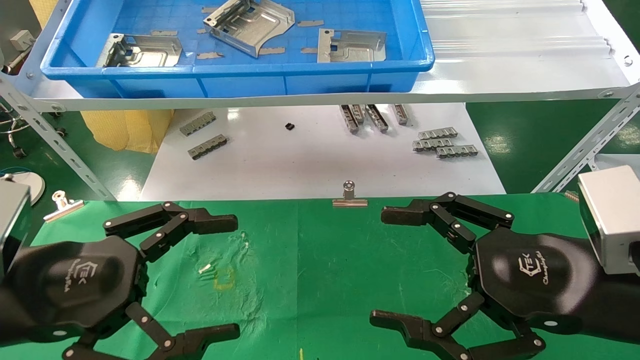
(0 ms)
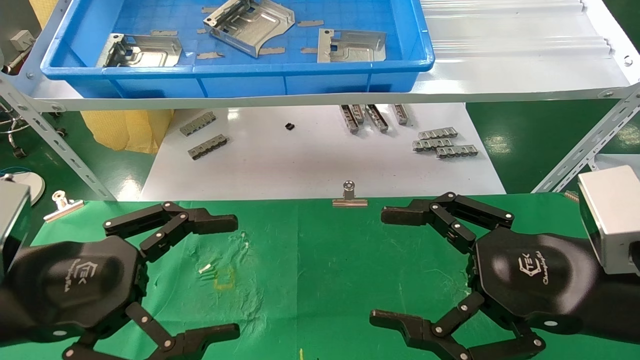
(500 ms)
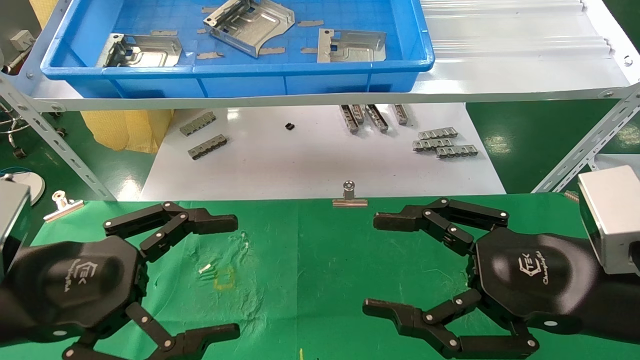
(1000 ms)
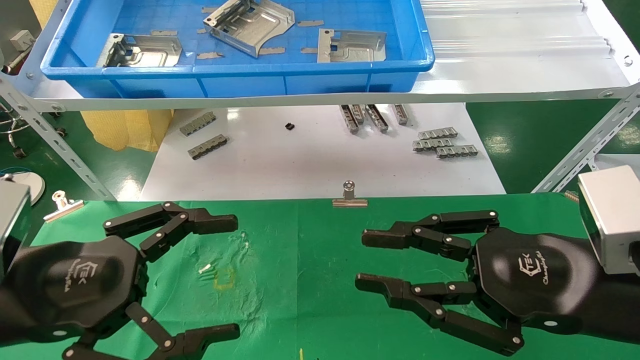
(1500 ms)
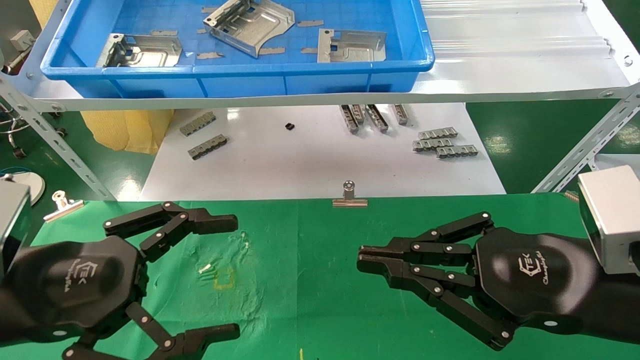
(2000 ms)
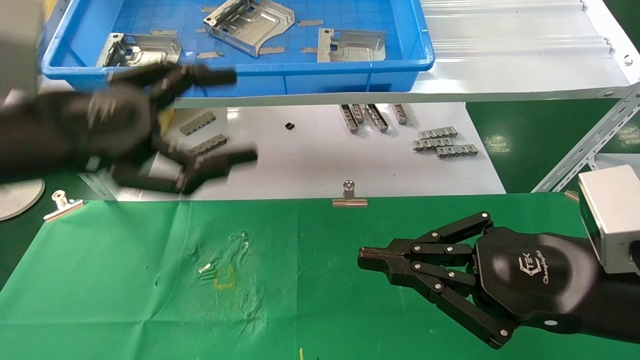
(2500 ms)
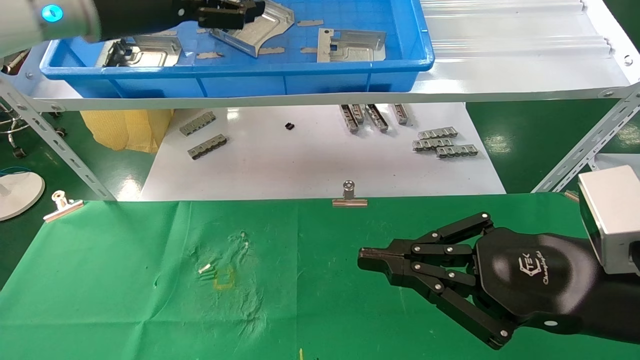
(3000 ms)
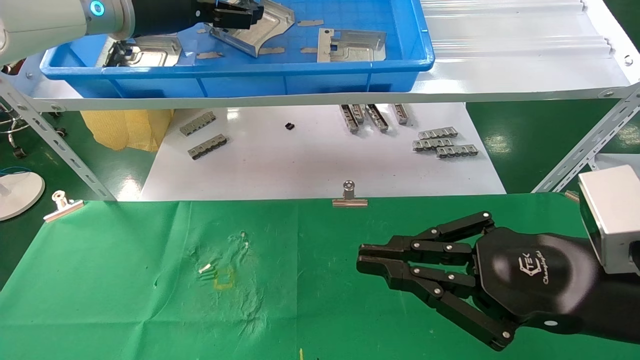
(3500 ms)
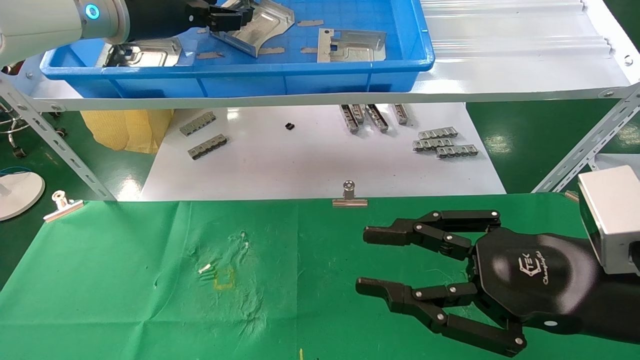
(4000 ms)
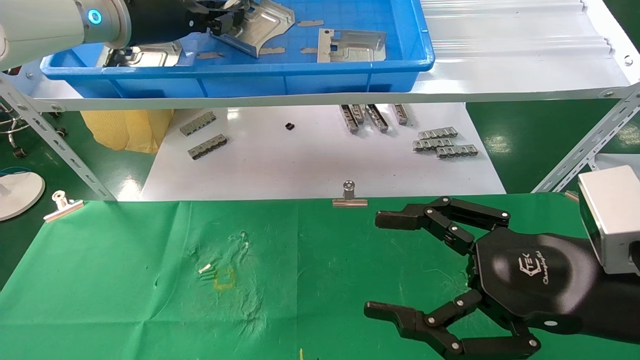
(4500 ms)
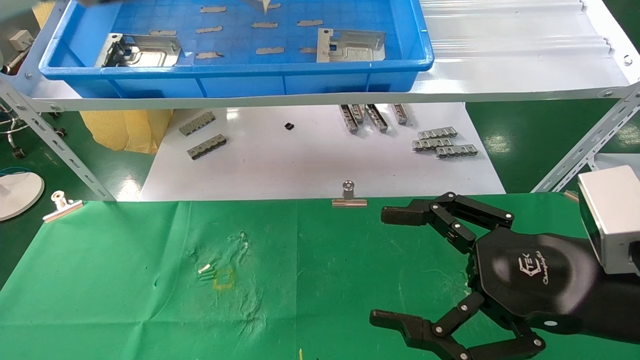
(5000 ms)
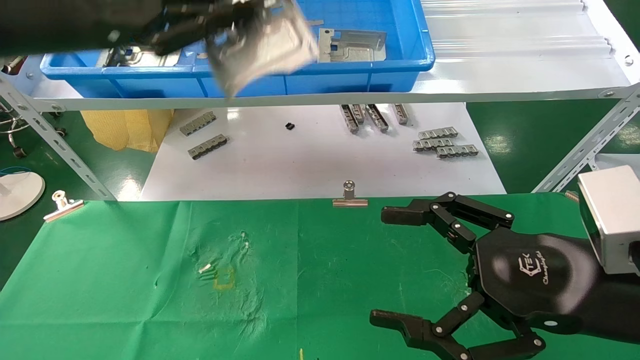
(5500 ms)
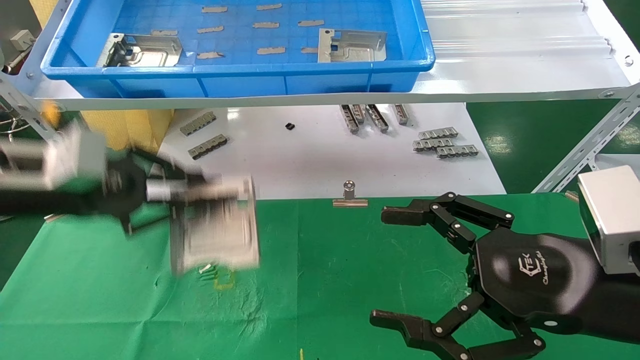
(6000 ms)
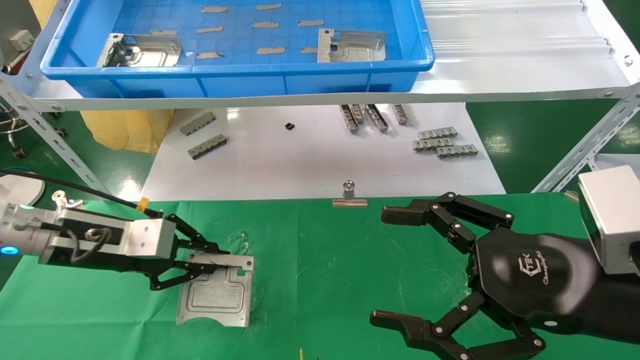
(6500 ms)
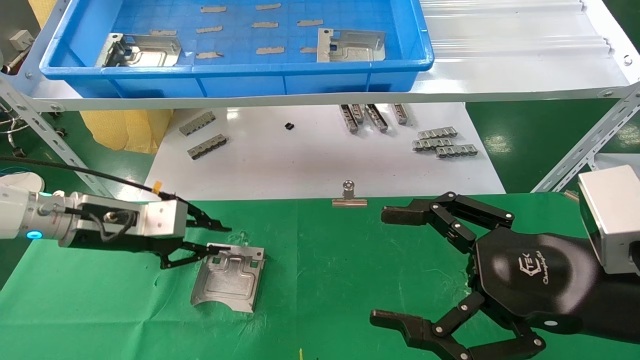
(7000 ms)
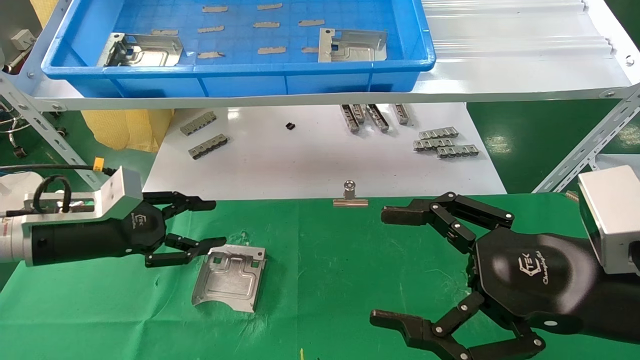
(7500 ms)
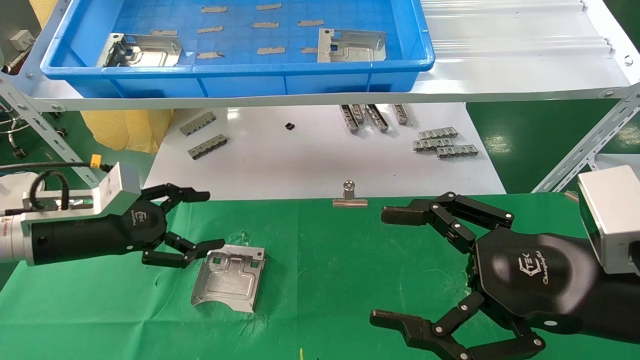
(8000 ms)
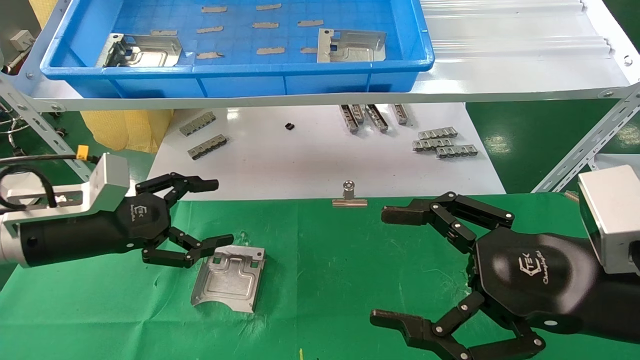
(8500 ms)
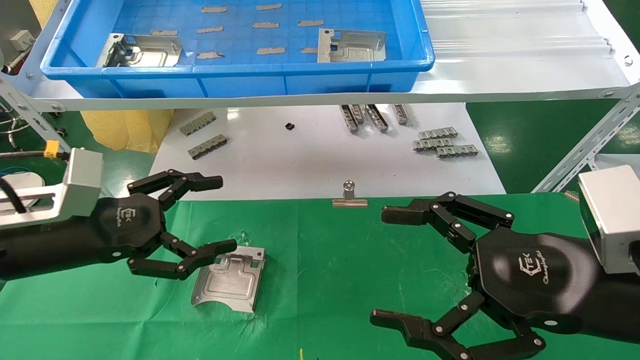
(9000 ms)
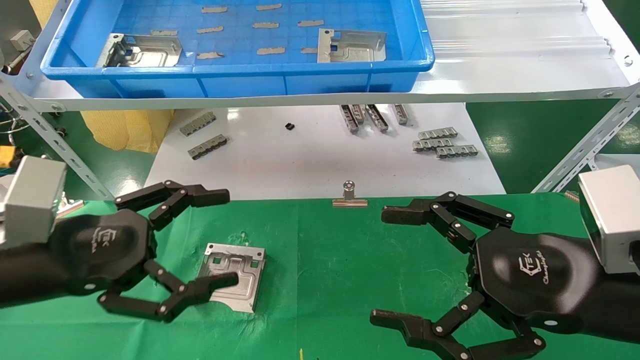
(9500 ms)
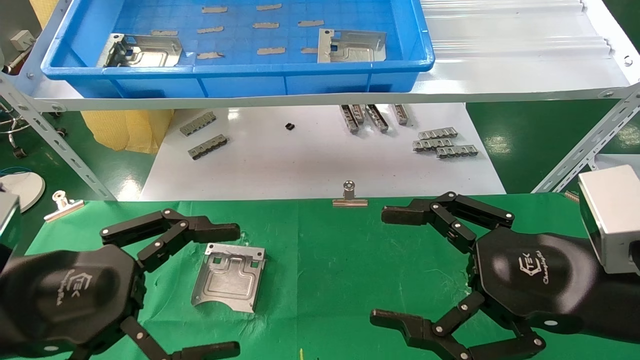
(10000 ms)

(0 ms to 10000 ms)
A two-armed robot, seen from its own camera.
Task of the whole recording: use the mechanical arm to pick up the parts and place them on the table.
Step, 2500 ms - 4500 ms: Pick up the hard drive bracket from the feeding area.
Step, 5000 ms - 7000 ms: Place the hard drive bracket into the box.
0 ms - 2000 ms: The right gripper closes.
2000 ms - 4000 ms: The left gripper shifts about 35 cm forward and upward.
4000 ms - 6000 ms: The right gripper opens up. Meanwhile the left gripper travels downward, backward and to the left by about 20 cm, and closes.
6000 ms - 8000 ms: The left gripper moves downward, some 10 cm, and opens its fingers.
8000 ms - 10000 ms: The left gripper goes approximately 15 cm backward.

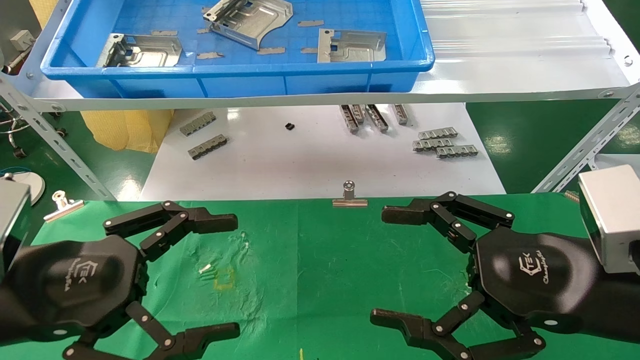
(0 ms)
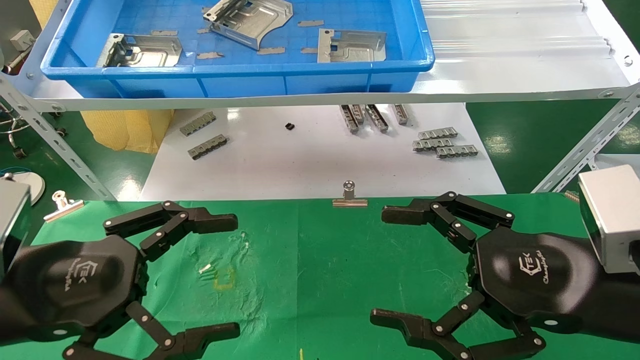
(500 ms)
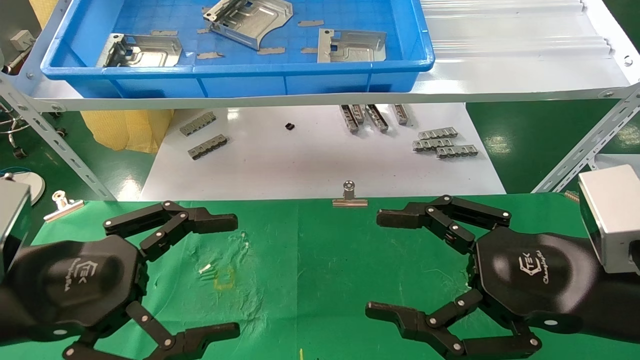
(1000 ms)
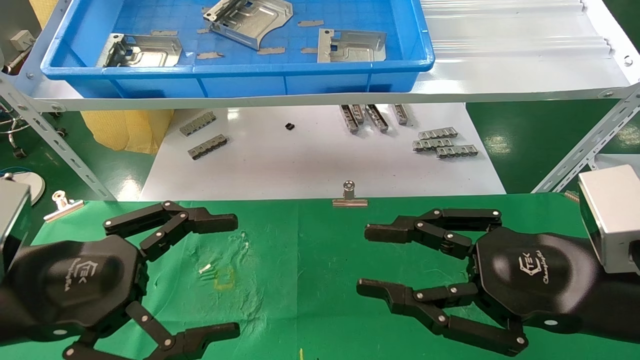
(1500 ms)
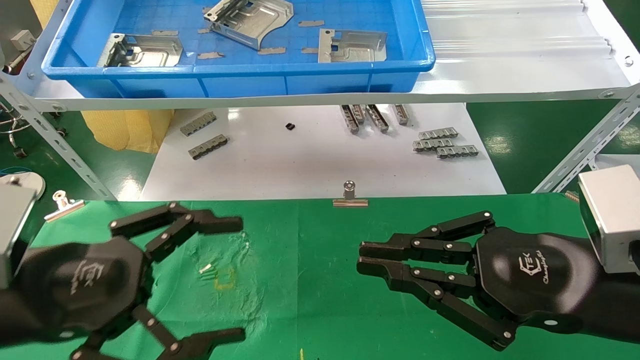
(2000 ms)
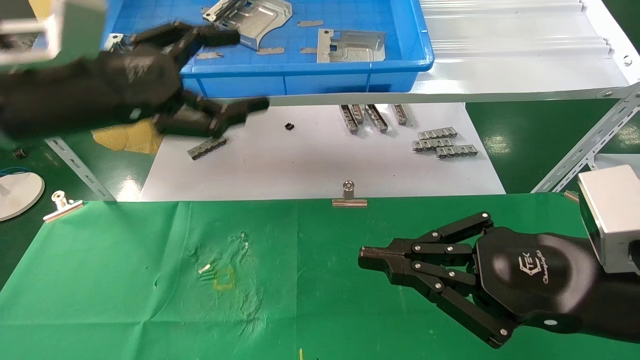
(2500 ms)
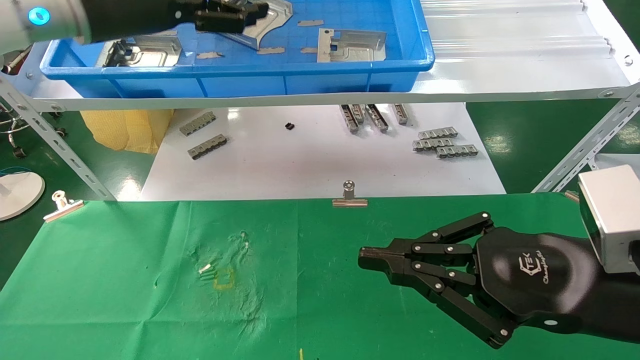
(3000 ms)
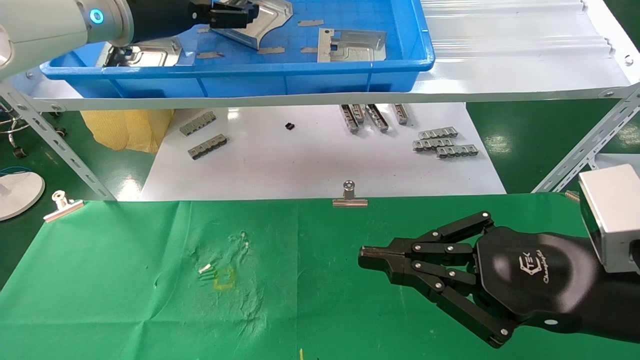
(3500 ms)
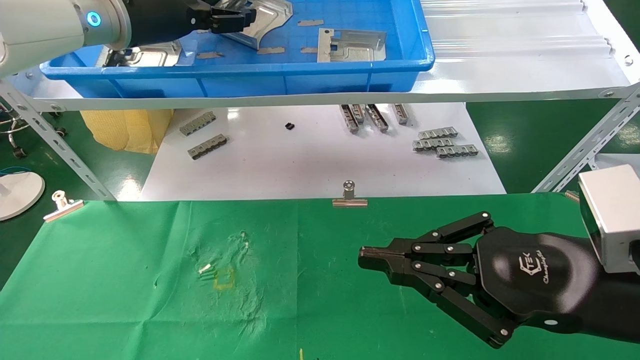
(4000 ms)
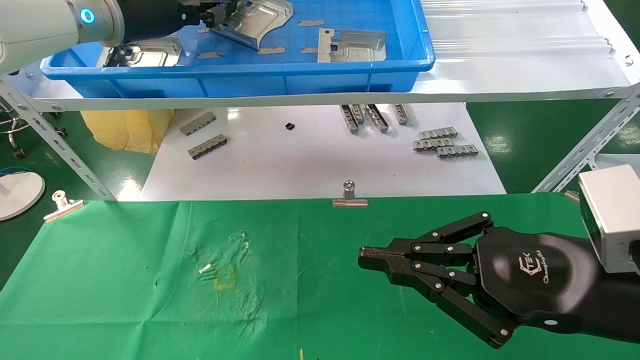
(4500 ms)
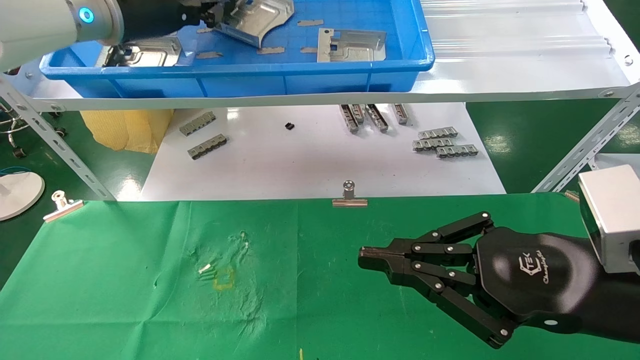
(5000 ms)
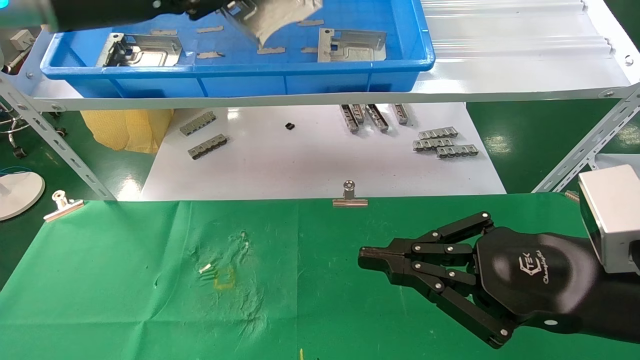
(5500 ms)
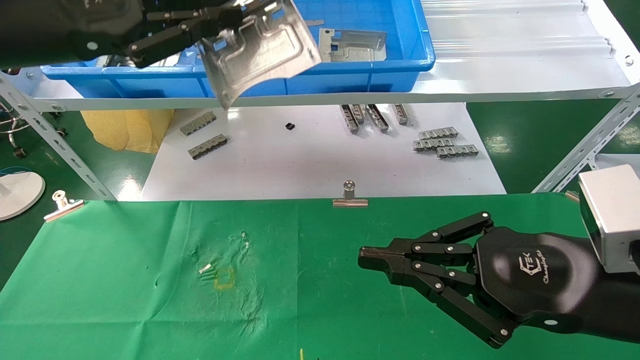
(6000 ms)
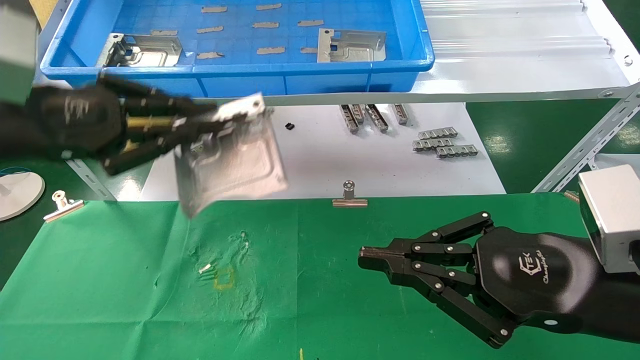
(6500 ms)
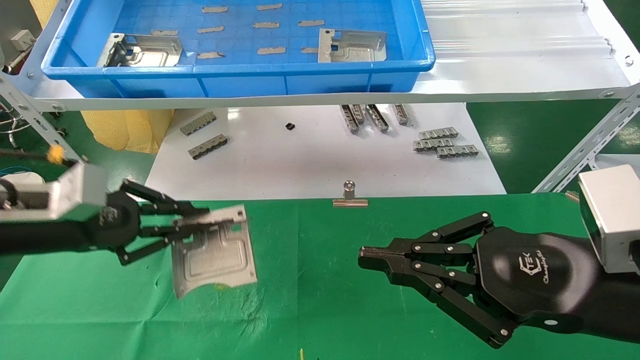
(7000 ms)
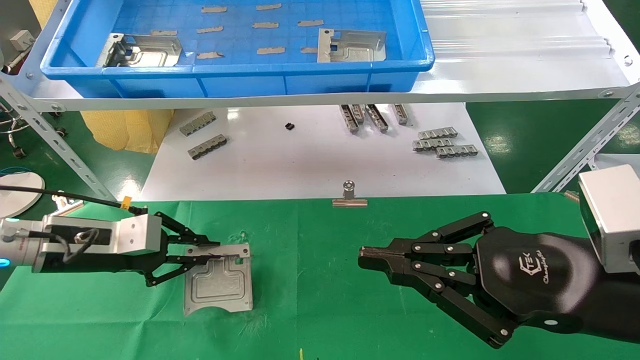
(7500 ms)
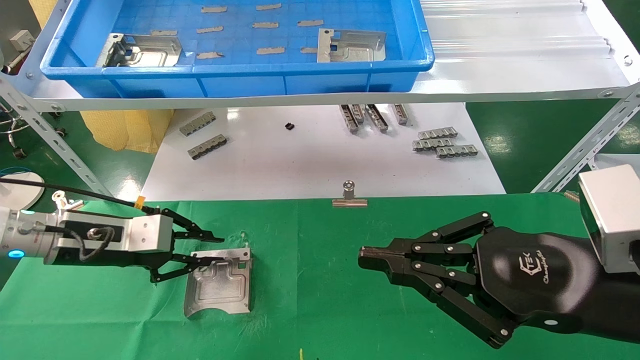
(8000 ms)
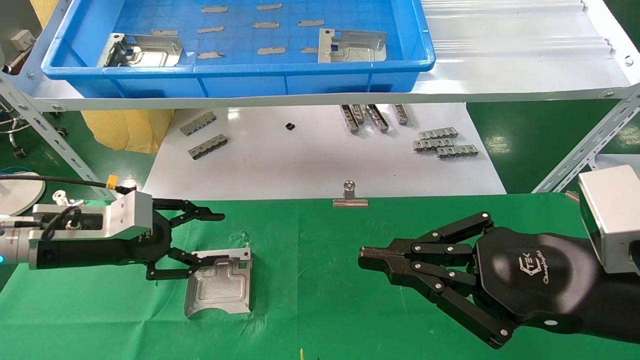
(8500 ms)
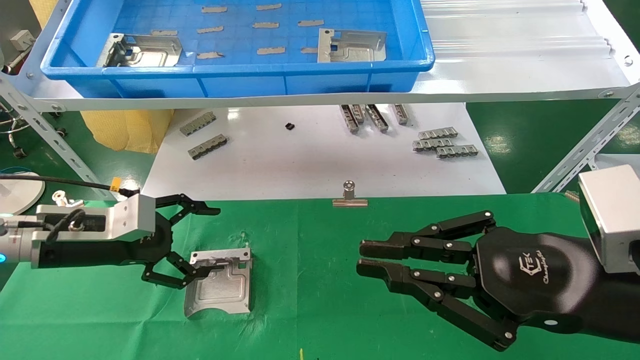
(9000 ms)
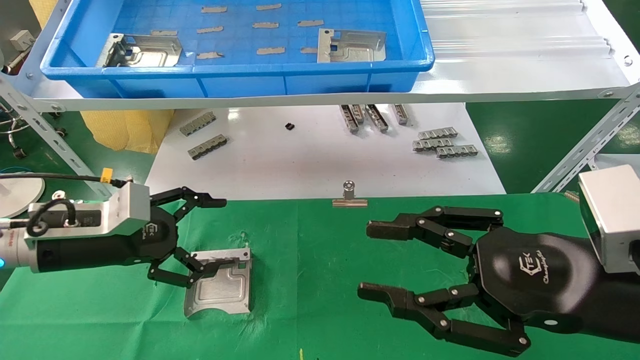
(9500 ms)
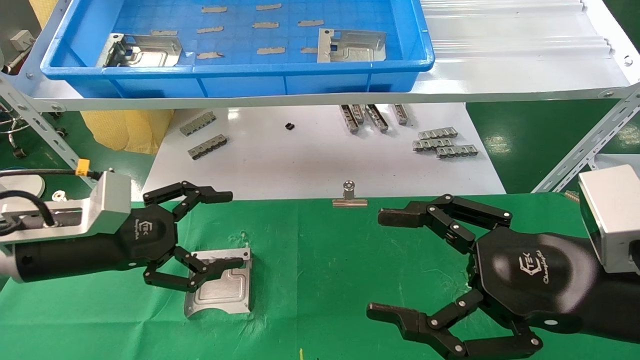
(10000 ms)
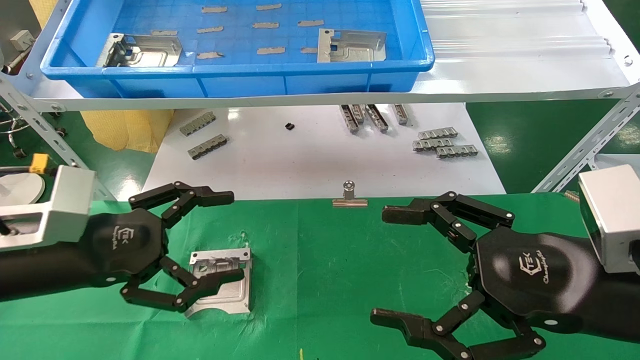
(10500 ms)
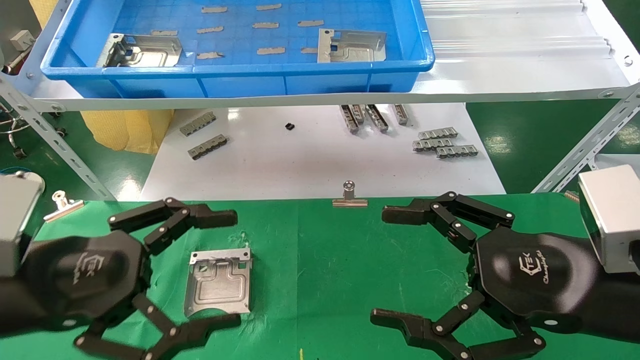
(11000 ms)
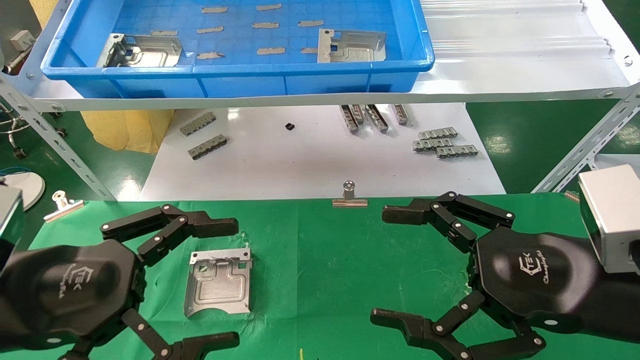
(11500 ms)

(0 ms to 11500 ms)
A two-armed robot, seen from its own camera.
Task of the whole recording: use the mechanical arm to pick up the parts and place them on the table.
Step, 2500 ms - 4500 ms: Pick up the hard drive bracket from the feeding area.
Step, 5000 ms - 7500 ms: Place the hard drive bracket into the box.
0 ms - 2000 ms: The right gripper closes up.
2000 ms - 4000 ms: The left gripper moves forward and upward, roughly 30 cm.
4000 ms - 6000 ms: The left gripper travels backward and to the left by roughly 15 cm, and closes.
6000 ms - 7500 ms: The left gripper heads downward, covering approximately 25 cm.
7500 ms - 9500 ms: The right gripper opens its fingers. Meanwhile the left gripper opens.
9500 ms - 11500 ms: The left gripper travels backward by roughly 15 cm, while the right gripper opens.
